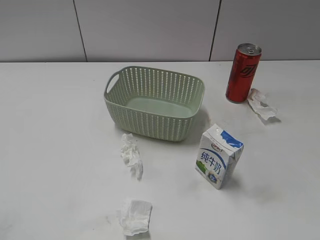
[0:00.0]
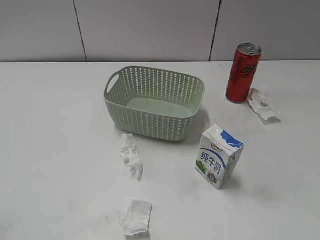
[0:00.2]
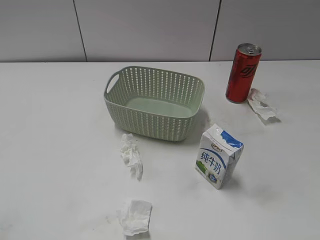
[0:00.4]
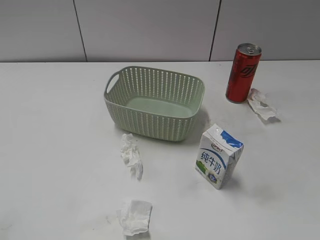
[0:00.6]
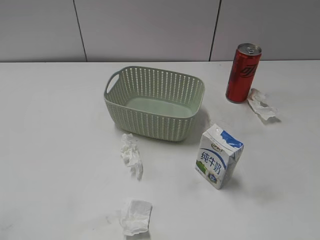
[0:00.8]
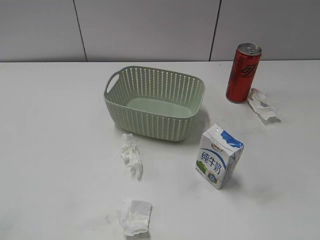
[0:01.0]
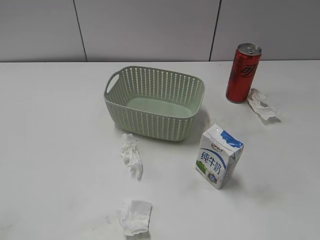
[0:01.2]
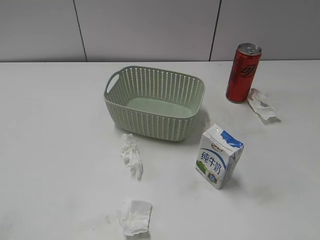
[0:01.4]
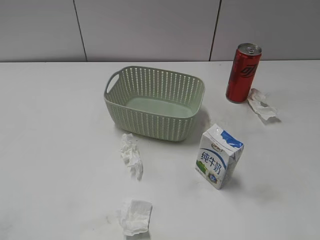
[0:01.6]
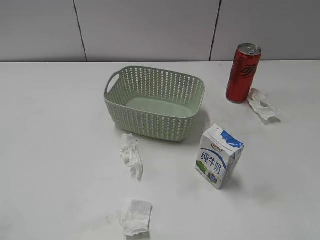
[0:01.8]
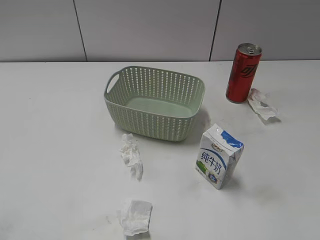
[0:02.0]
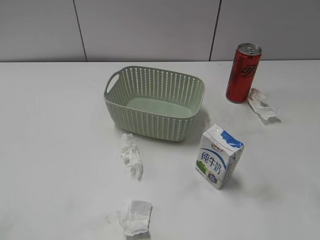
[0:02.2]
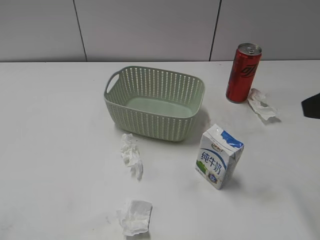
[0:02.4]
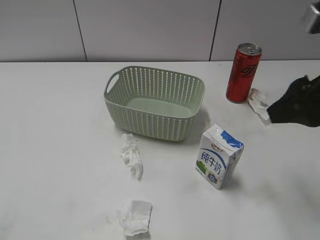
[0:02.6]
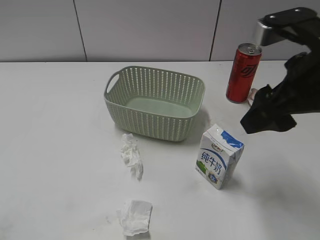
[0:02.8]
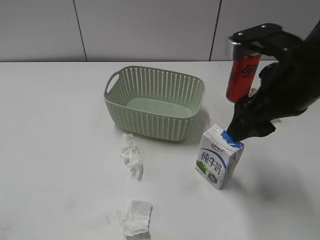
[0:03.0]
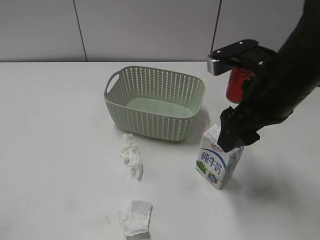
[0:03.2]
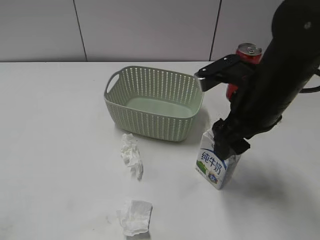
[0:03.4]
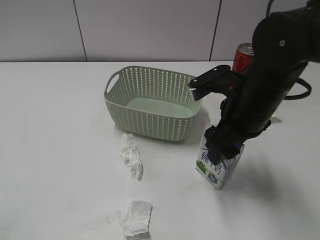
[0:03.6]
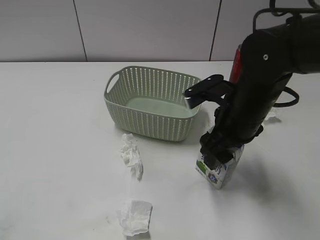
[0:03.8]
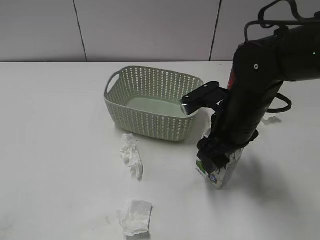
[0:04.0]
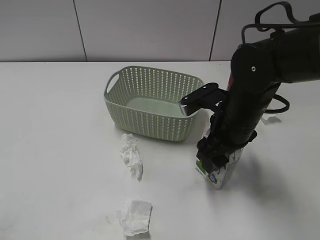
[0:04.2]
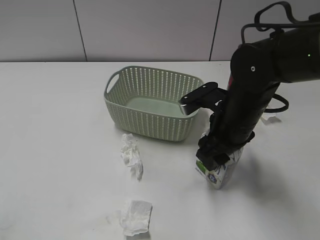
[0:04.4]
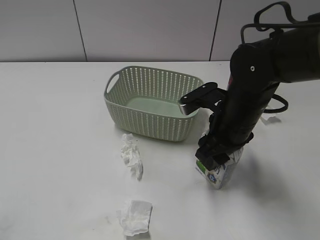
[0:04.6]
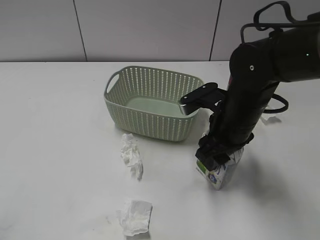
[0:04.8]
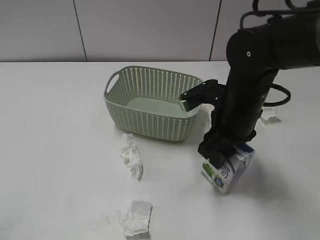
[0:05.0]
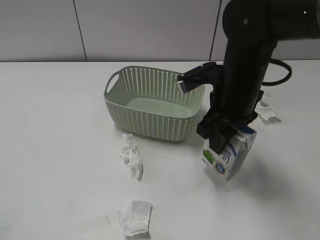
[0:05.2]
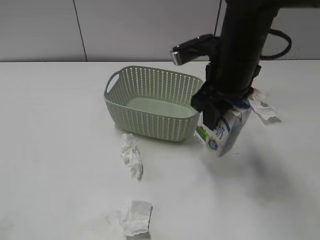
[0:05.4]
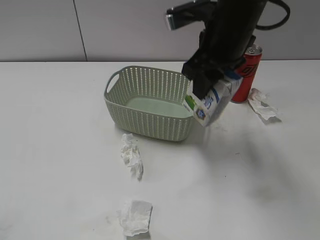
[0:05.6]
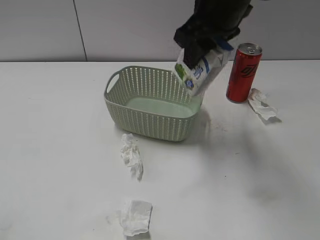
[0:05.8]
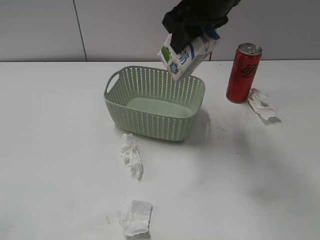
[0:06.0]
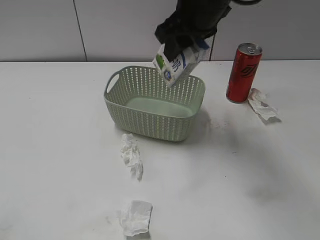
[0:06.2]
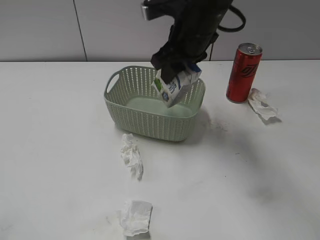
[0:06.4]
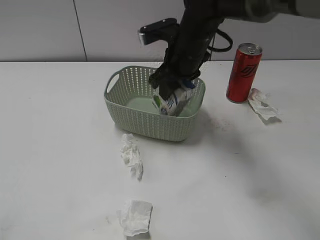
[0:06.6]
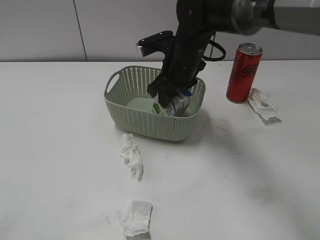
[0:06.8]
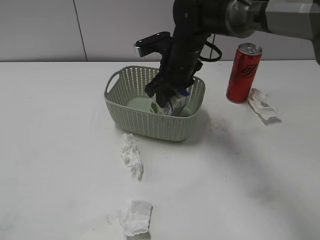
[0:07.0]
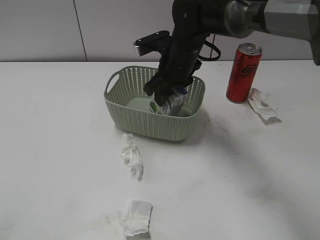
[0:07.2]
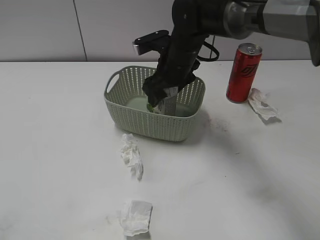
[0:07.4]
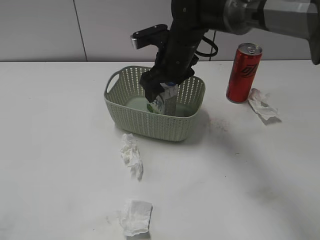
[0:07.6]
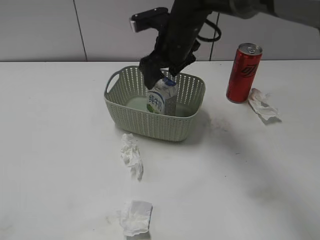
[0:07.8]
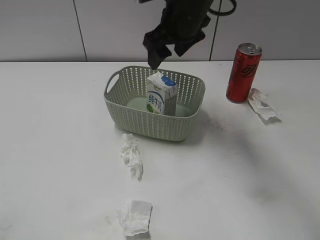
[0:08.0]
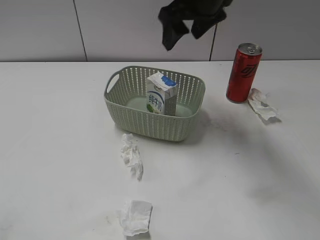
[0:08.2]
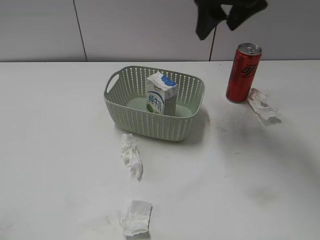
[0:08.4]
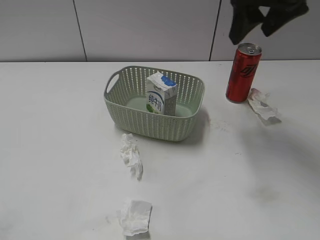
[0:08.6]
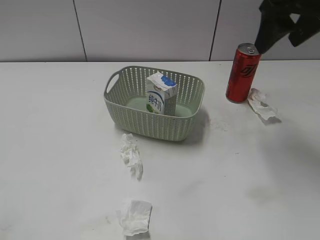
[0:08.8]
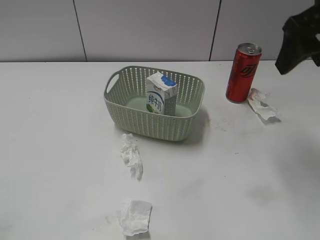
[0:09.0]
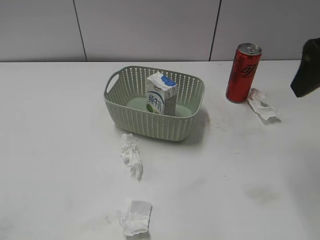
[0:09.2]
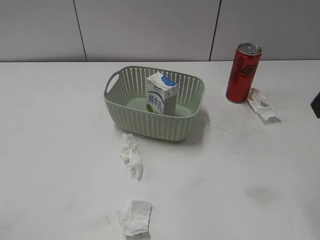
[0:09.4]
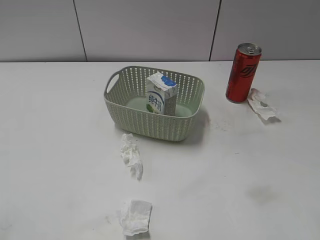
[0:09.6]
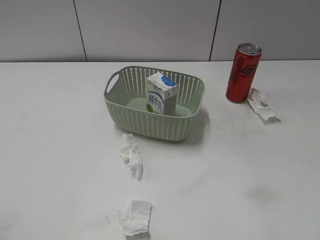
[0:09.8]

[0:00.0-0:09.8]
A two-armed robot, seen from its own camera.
Step, 0:02.4 to 0:05.0: Grasp the milk with right gripper.
Step, 0:05.2 to 0:08.0: Place the milk in the basket with right gripper.
0:01.4 to 0:02.8: The right gripper shifts roughly 25 cm forward and to the left.
0:02.8 to 0:04.2: The right gripper heads downward, to the left and forward, covering approximately 15 cm.
0:04.2 to 0:05.6: The right gripper moves upward, some 10 cm, and closes.
0:05.6 to 0:07.0: The right gripper is displaced downward, forward and to the left by approximately 15 cm.
0:07.0 to 0:08.4: The right gripper heads upward and to the right, covering about 20 cm, and opens its fingers.
0:08.4 to 0:09.8: The right gripper moves backward and to the right, about 30 cm.

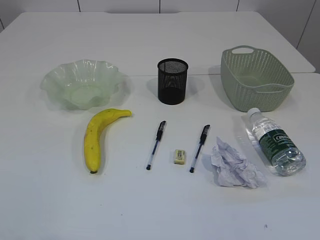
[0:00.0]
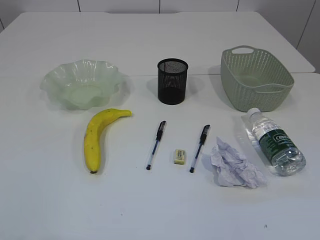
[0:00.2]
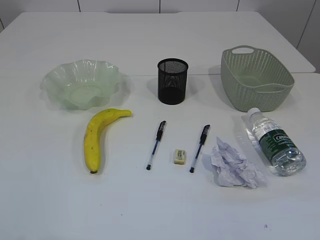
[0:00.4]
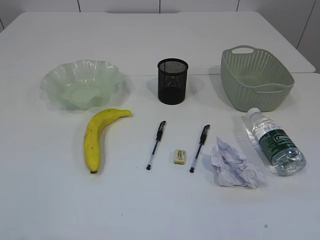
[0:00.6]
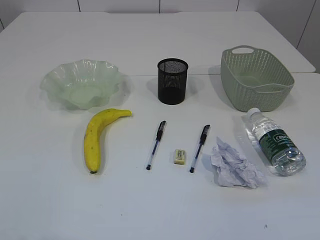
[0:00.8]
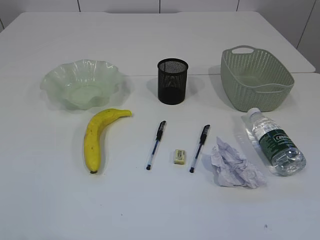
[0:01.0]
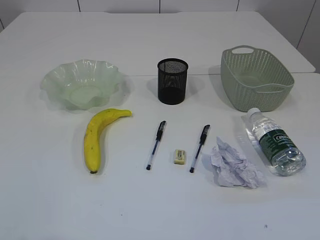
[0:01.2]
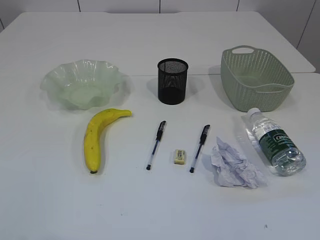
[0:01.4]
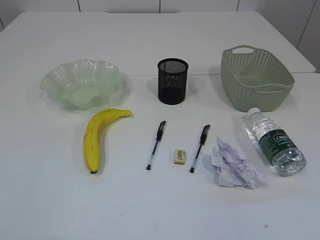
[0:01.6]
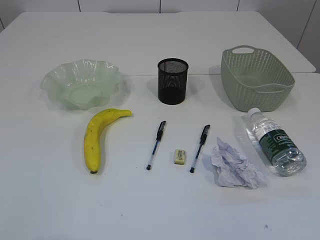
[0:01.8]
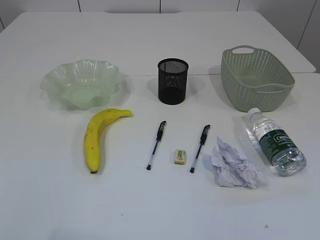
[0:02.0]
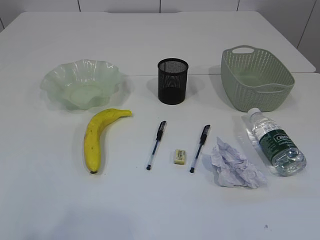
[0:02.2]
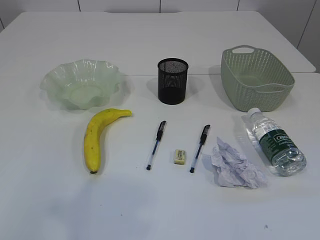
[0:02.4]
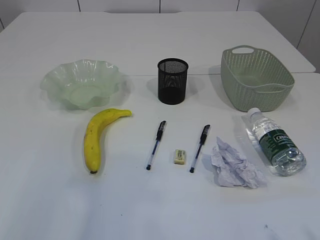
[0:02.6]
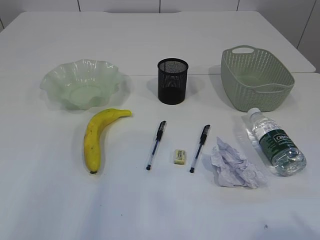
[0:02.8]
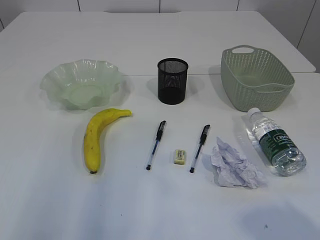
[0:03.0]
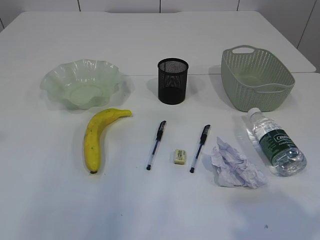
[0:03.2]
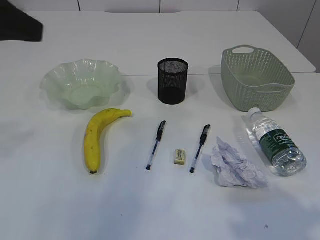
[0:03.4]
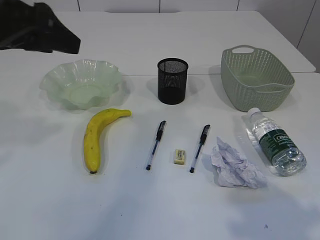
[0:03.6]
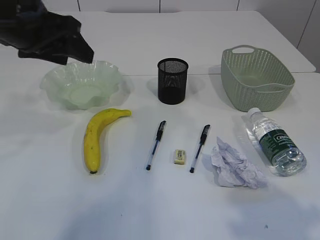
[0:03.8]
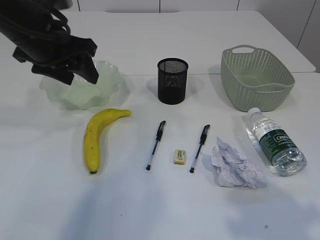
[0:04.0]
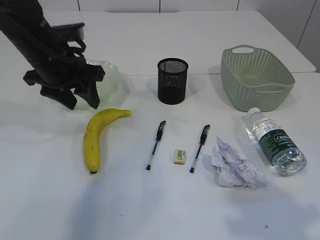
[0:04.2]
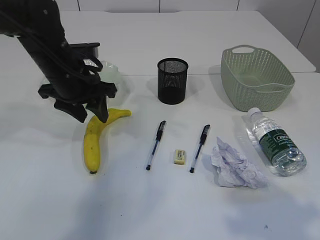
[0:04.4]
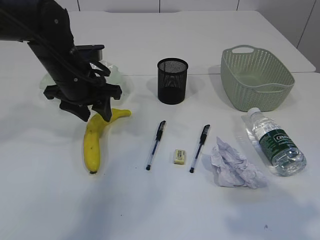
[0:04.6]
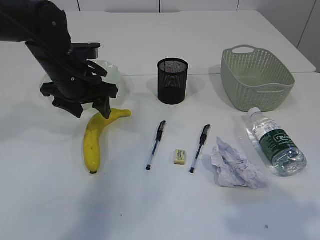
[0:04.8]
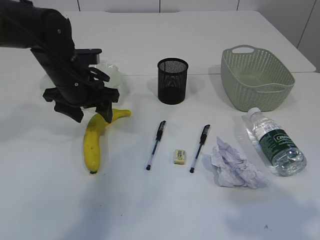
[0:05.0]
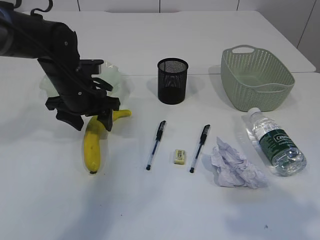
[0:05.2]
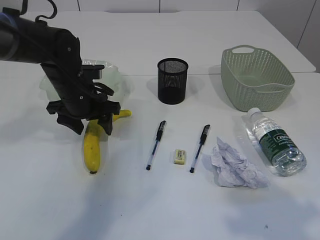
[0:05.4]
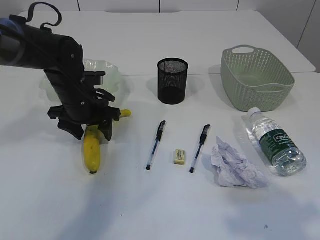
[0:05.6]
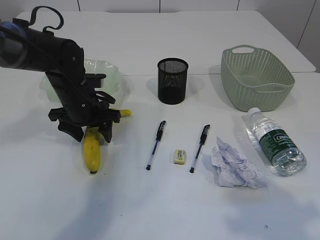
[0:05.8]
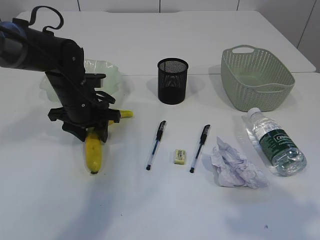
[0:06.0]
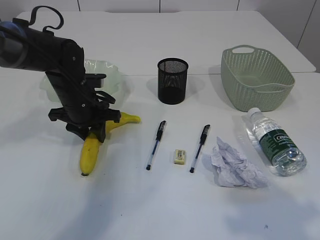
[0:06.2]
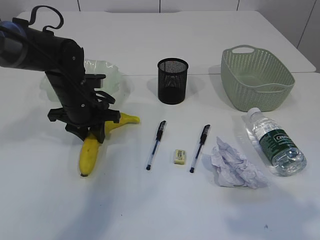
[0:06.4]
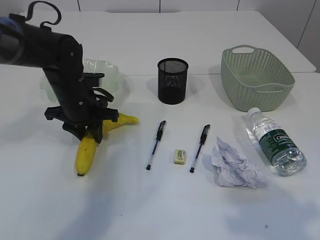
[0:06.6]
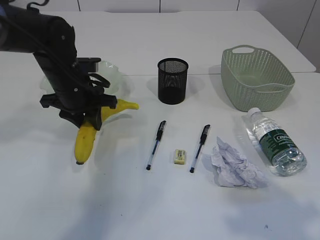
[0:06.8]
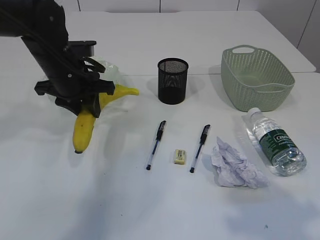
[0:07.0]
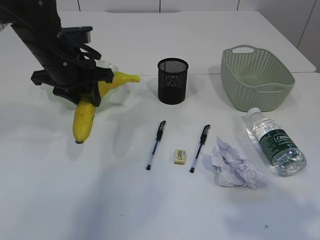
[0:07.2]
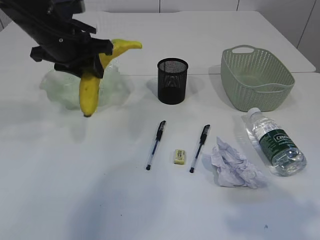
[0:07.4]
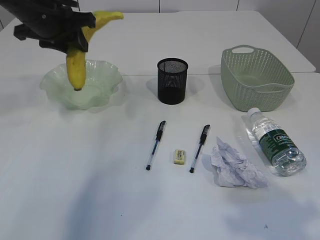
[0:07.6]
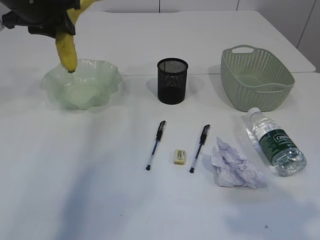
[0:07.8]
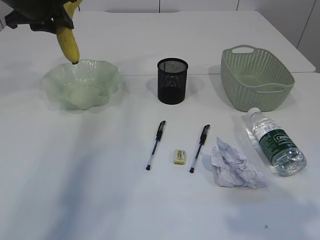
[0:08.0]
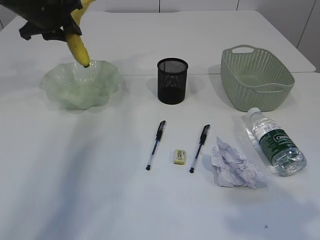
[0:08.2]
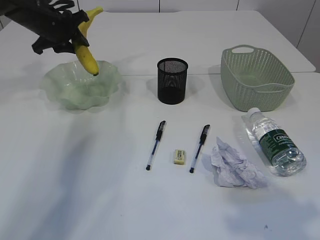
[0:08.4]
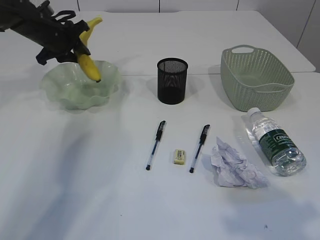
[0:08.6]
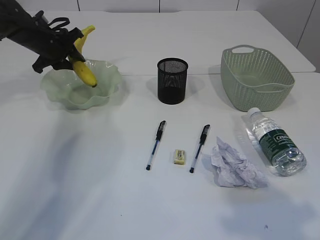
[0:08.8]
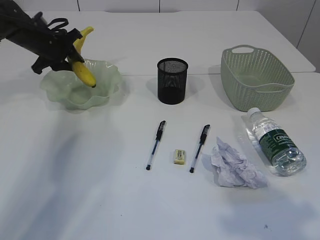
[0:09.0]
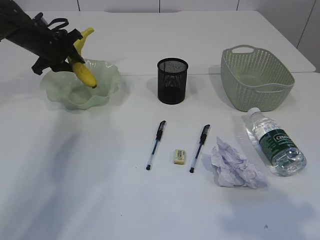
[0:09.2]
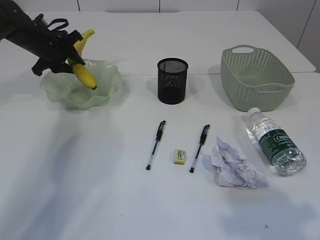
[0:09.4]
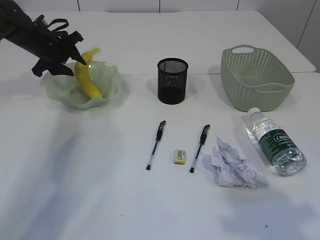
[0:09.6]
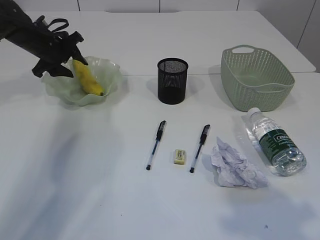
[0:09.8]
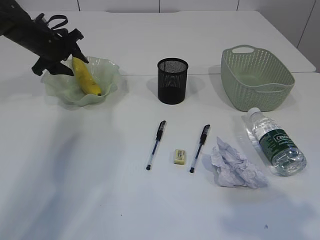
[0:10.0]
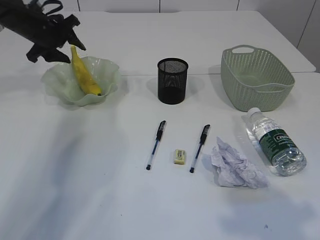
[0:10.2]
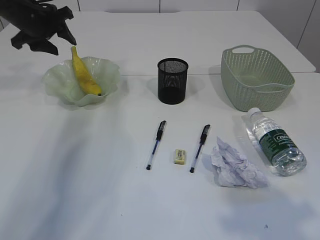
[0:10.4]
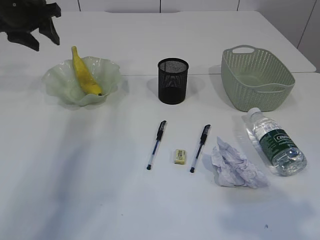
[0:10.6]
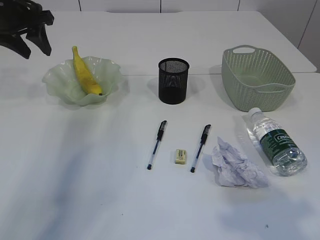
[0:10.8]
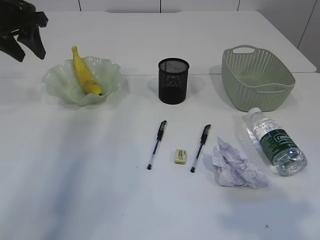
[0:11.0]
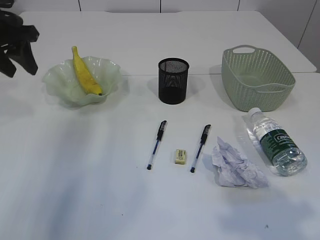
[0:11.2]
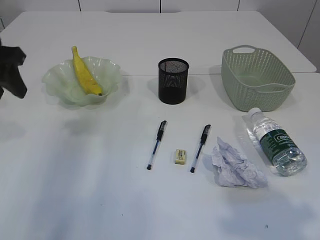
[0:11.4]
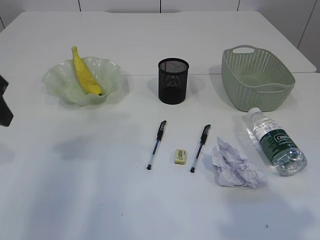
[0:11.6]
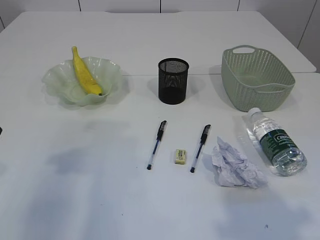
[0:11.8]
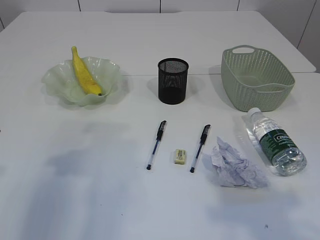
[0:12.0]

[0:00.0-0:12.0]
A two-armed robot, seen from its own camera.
Step, 0:07.0 to 0:10.2: Place the banana in the plate.
0:01.6 to 0:03.0: The left gripper travels forward and upward by about 20 cm; the right gripper goes approximately 5 cm forward.
0:03.0 to 0:04.4: The left gripper shifts roughly 30 cm forward, downward and to the right.
0:04.4 to 0:06.0: The left gripper goes roughly 10 cm downward.
0:06.0 to 0:07.6: The left gripper moves upward, some 15 cm, and closes.
0:07.6 to 0:09.0: The left gripper shifts roughly 20 cm forward, downward and to the left.
0:09.0 to 0:10.4: The left gripper goes approximately 5 cm upward, and opens its fingers.
0:10.4 to 0:12.0: The left gripper travels backward by roughly 30 cm.
